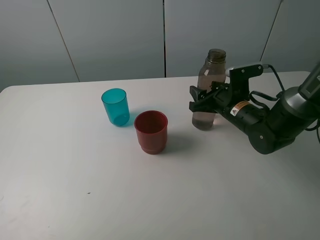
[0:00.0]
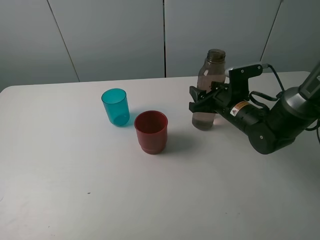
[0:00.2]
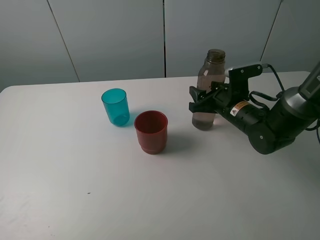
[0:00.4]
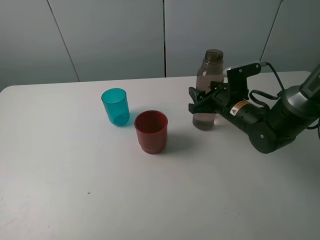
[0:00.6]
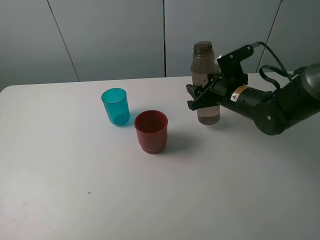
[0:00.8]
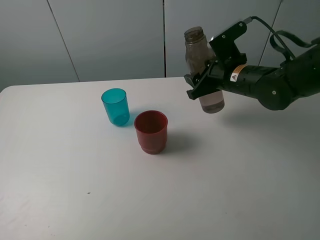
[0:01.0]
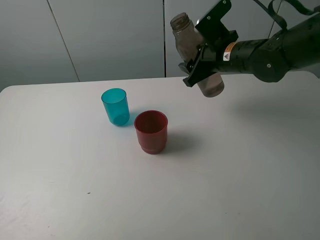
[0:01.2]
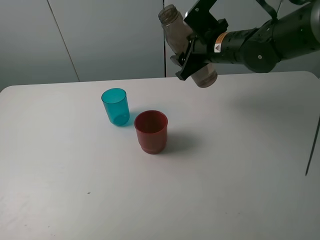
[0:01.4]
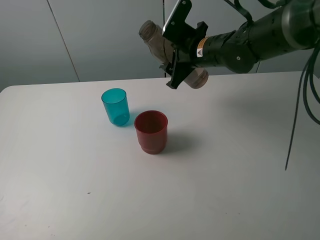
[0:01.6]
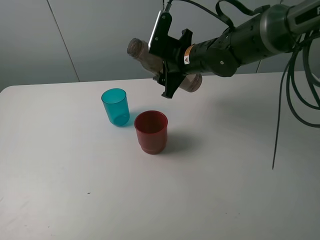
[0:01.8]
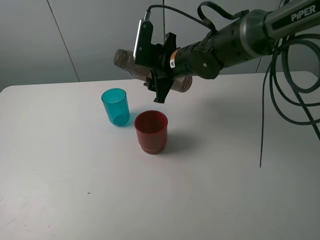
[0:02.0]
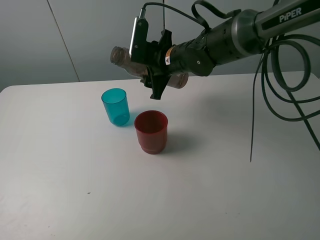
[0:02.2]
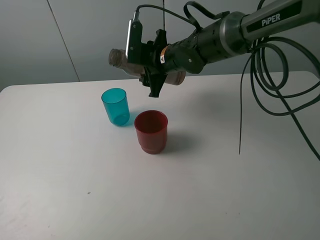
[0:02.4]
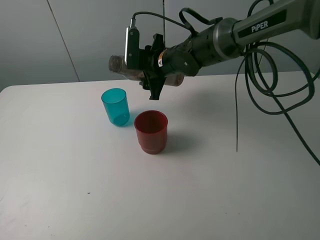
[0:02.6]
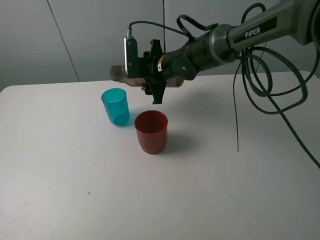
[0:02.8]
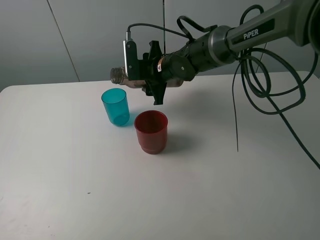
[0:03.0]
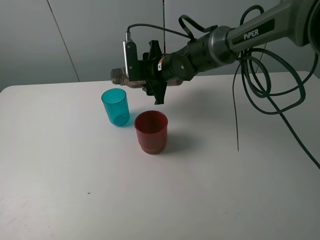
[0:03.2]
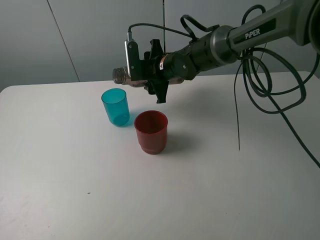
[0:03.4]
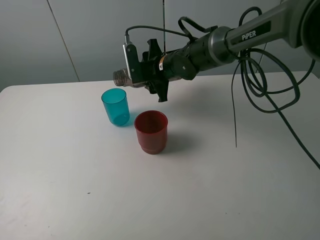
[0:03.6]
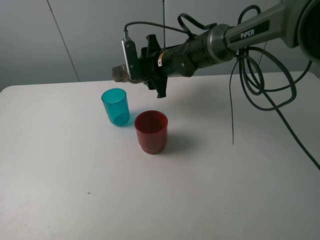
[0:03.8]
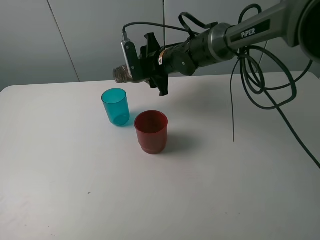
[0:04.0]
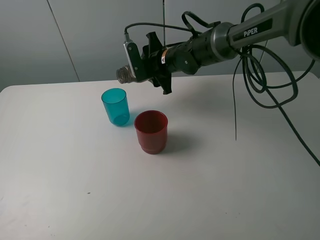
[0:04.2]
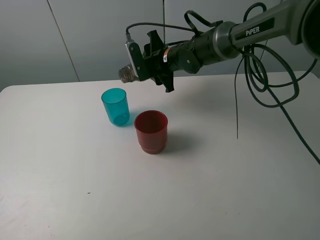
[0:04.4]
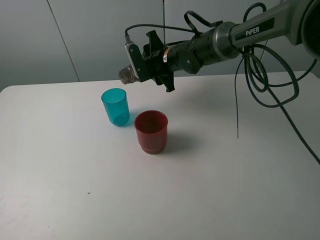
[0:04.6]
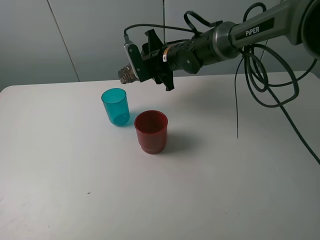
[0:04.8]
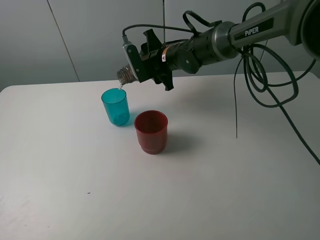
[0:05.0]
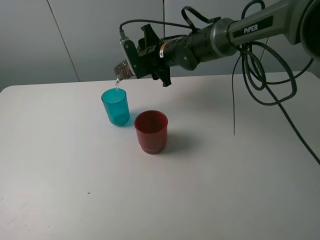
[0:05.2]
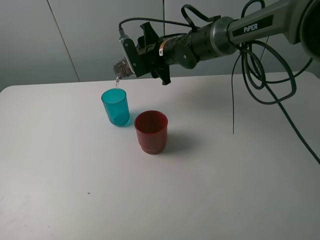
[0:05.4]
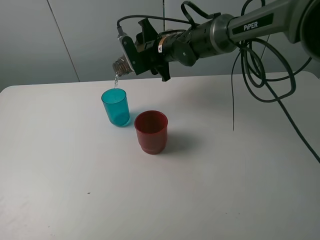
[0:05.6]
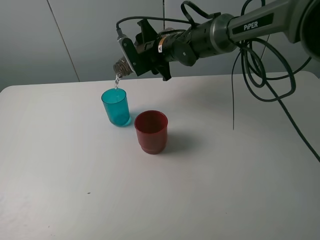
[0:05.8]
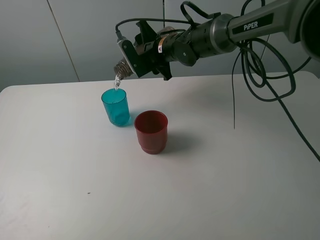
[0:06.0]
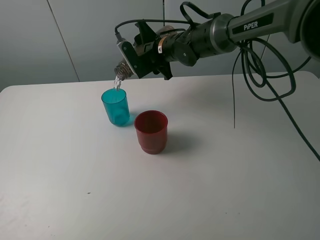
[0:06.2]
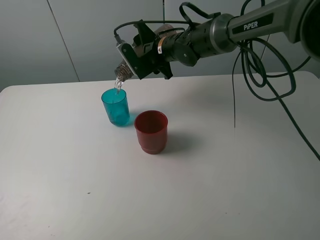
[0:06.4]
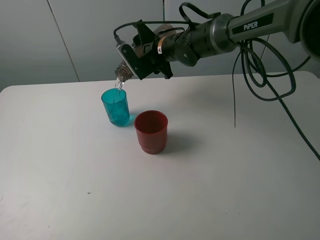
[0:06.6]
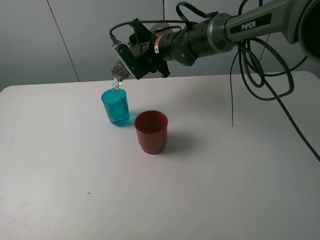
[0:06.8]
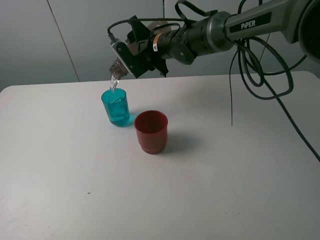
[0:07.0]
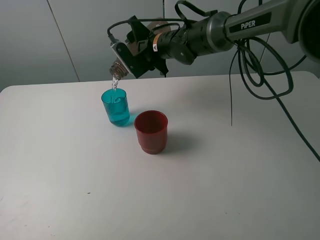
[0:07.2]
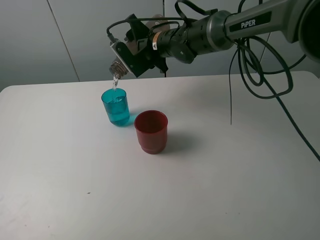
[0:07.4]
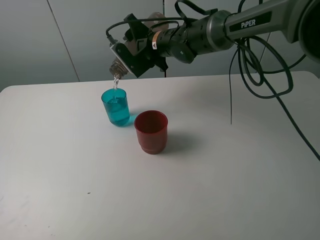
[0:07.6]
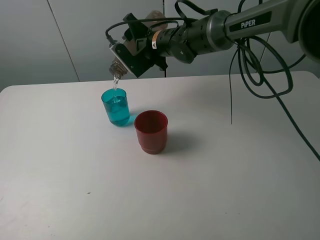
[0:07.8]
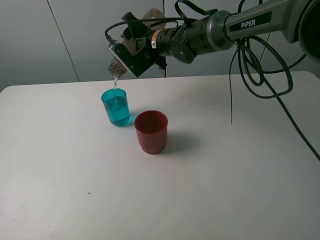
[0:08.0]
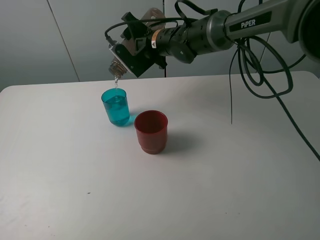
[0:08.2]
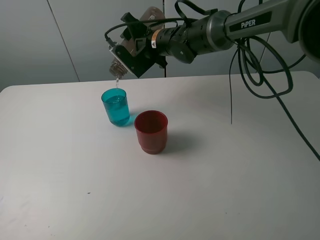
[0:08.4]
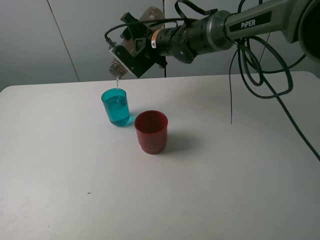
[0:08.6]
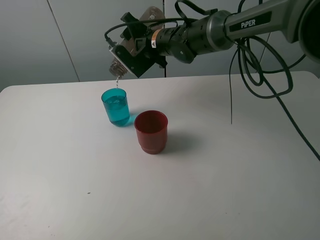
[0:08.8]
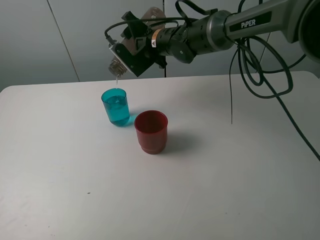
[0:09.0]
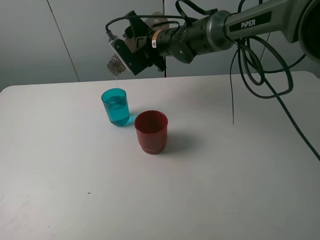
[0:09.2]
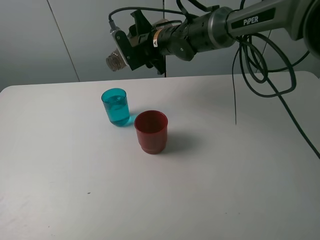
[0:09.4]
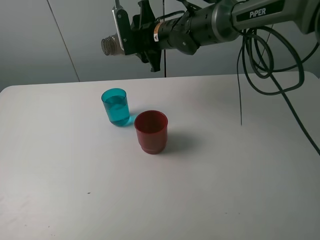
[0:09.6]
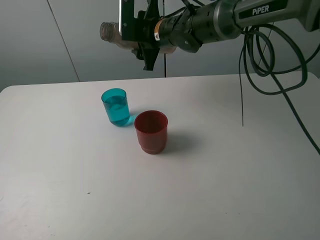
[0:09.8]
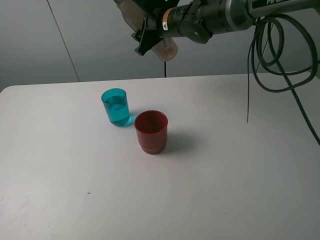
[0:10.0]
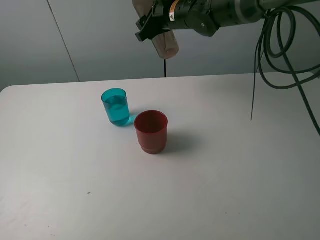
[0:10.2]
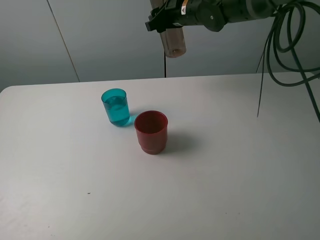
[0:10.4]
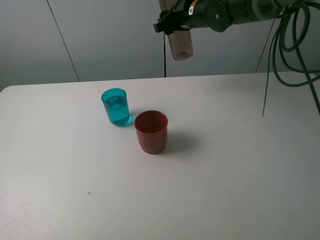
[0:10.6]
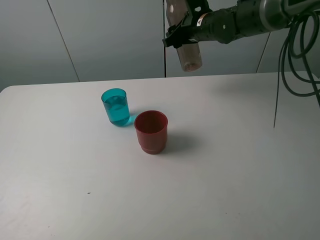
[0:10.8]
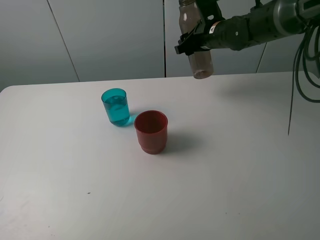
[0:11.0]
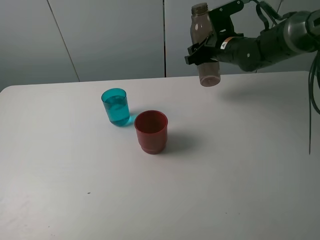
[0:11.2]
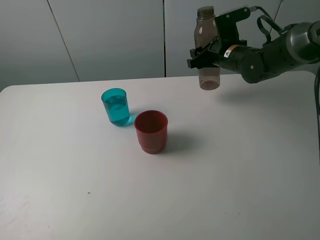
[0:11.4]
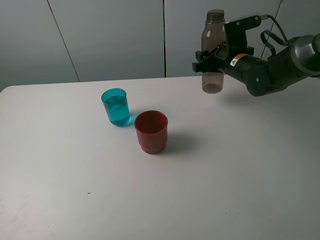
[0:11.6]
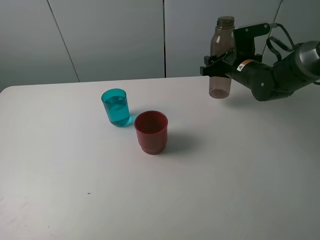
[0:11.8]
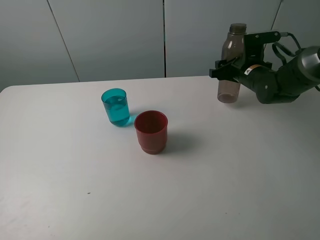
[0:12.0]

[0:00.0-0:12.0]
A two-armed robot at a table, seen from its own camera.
Task of the whole recording: pick up the bottle and pour water into the cup, then pick up the cup containing water and pour it into another cup.
Step, 0:00.4 to 0:09.0: Pour water from brown bottle to blue cup with the right gripper.
0:00.0 to 0:01.6: The right gripper is displaced upward, to the left and forward by approximately 15 cm.
0:01.6 to 0:03.0: The right gripper heads to the left and downward, covering about 10 cm.
0:03.0 to 0:04.4: There are only small adjustments of the grippers.
0:04.4 to 0:06.0: The grippers stay close to where they were, moving slightly.
0:06.0 to 0:09.0: The grippers make only small movements.
0:09.0 to 0:10.4: The right gripper heads to the right and upward, covering roughly 10 cm.
0:10.4 to 0:12.0: The right gripper is displaced to the right, downward and backward by roughly 20 cm.

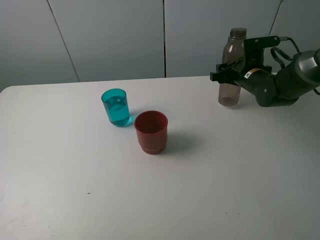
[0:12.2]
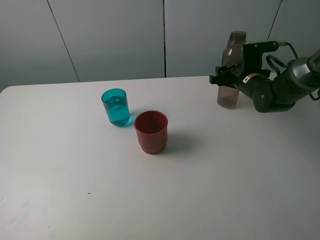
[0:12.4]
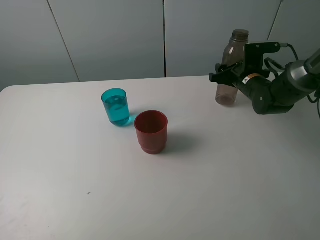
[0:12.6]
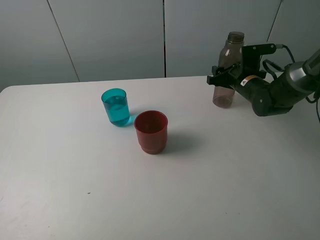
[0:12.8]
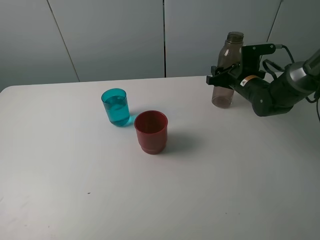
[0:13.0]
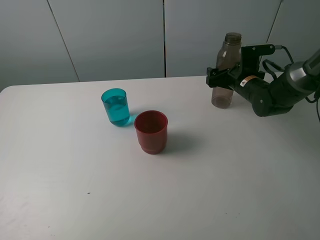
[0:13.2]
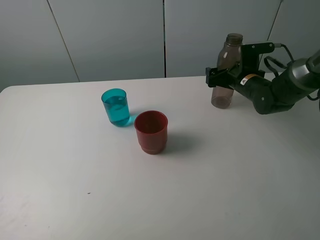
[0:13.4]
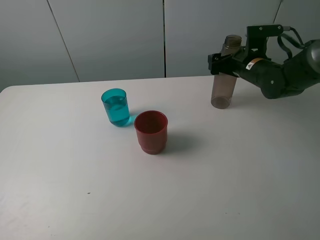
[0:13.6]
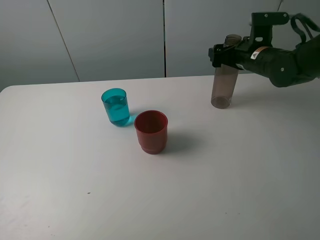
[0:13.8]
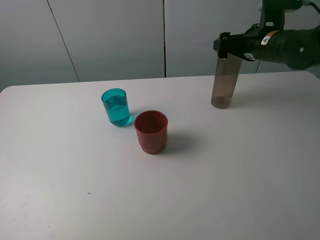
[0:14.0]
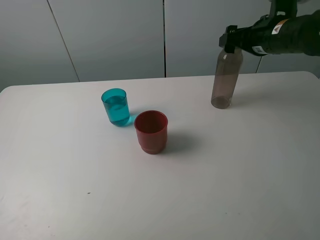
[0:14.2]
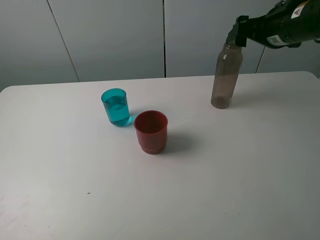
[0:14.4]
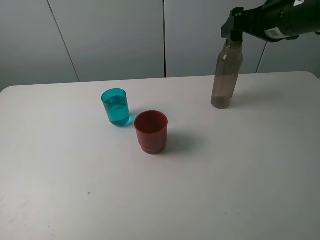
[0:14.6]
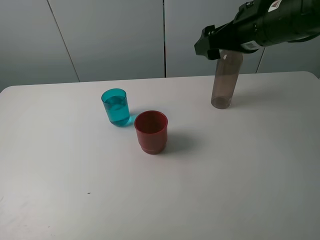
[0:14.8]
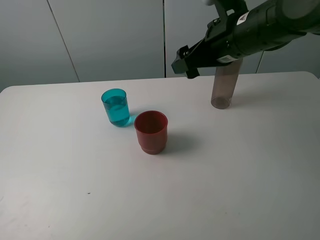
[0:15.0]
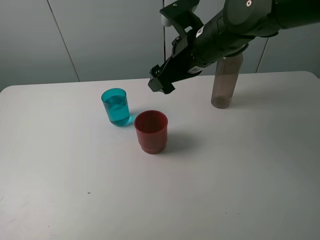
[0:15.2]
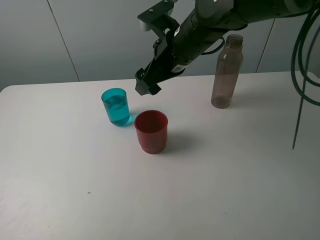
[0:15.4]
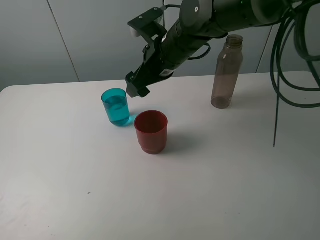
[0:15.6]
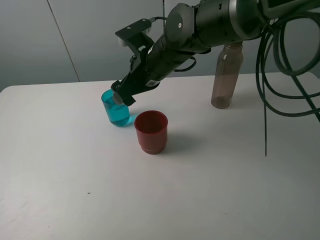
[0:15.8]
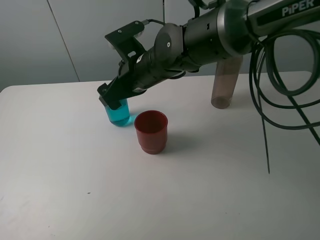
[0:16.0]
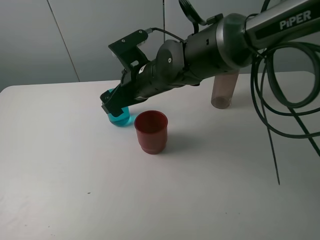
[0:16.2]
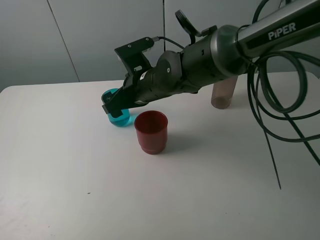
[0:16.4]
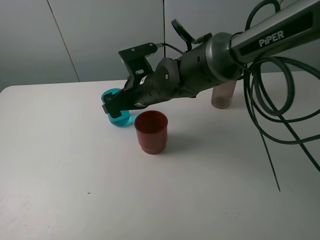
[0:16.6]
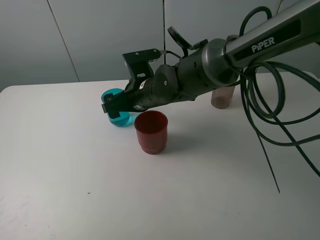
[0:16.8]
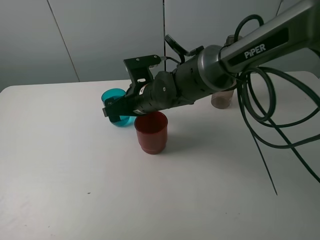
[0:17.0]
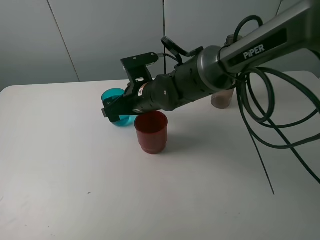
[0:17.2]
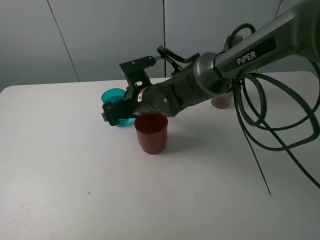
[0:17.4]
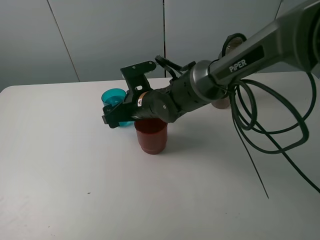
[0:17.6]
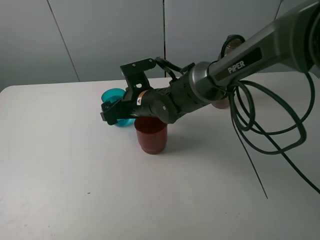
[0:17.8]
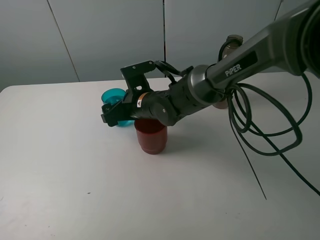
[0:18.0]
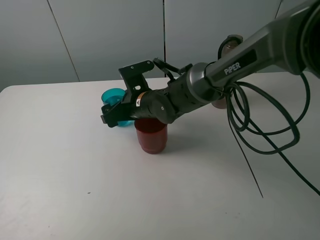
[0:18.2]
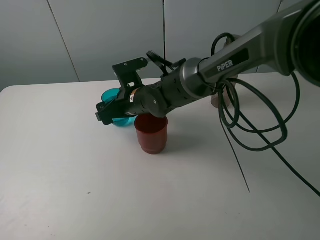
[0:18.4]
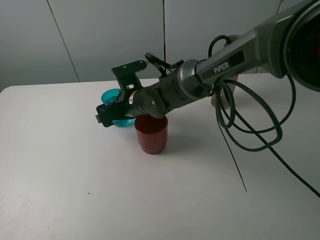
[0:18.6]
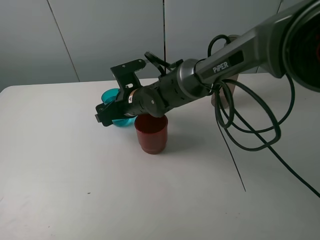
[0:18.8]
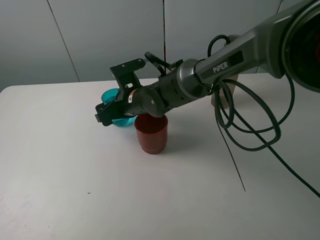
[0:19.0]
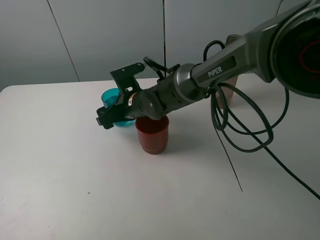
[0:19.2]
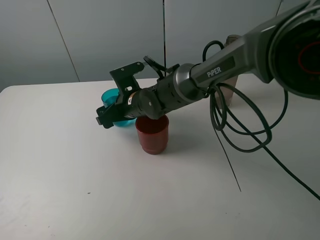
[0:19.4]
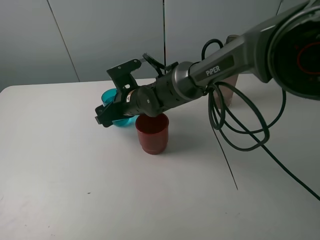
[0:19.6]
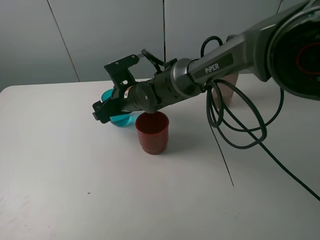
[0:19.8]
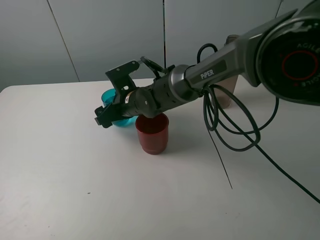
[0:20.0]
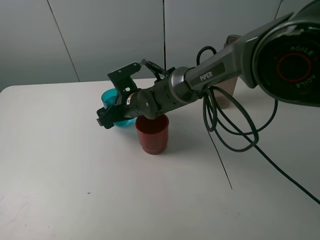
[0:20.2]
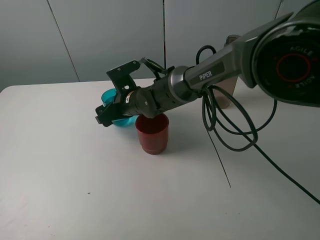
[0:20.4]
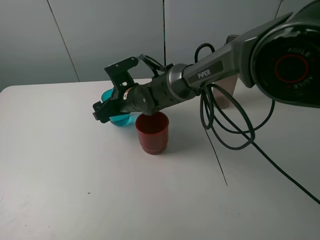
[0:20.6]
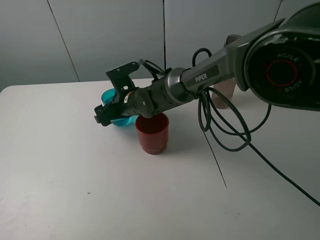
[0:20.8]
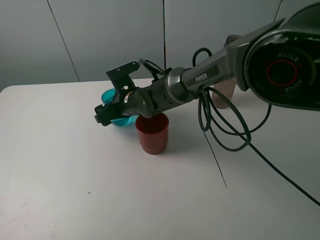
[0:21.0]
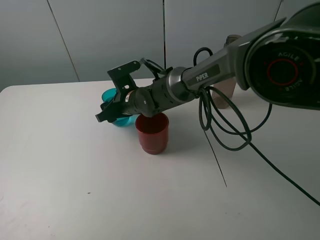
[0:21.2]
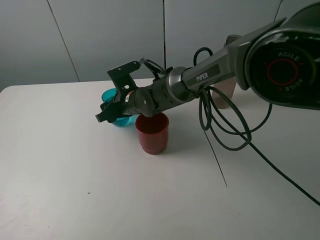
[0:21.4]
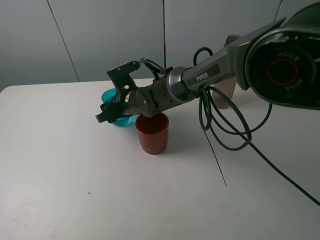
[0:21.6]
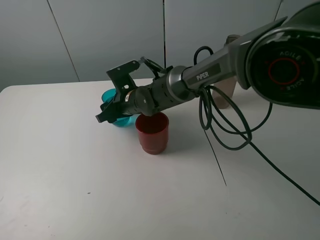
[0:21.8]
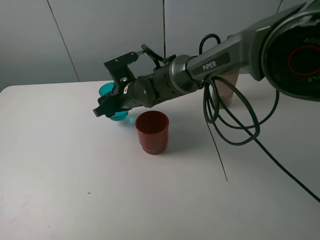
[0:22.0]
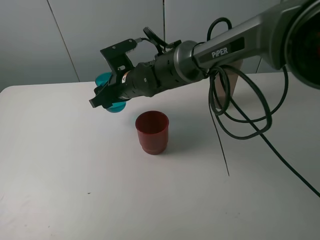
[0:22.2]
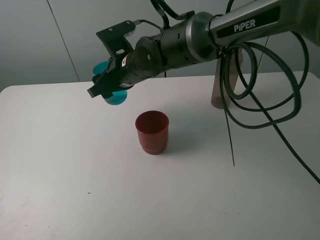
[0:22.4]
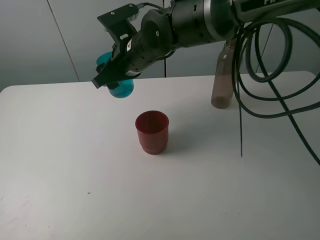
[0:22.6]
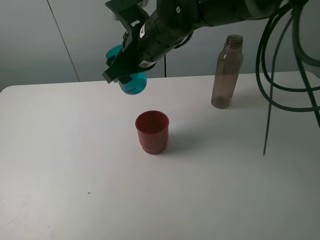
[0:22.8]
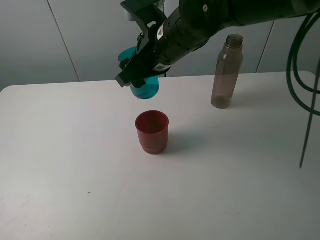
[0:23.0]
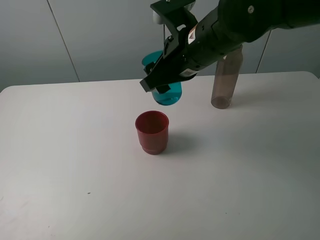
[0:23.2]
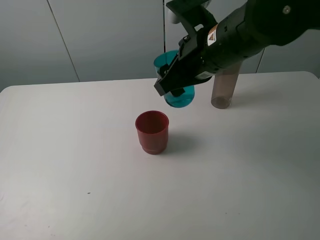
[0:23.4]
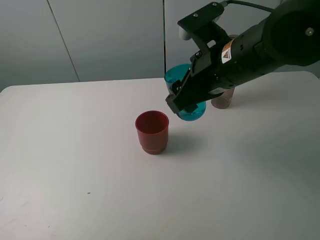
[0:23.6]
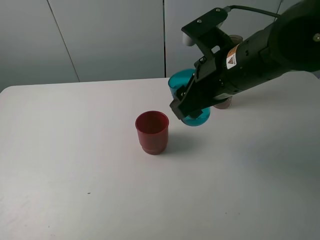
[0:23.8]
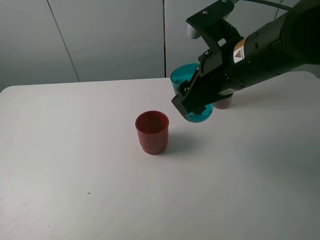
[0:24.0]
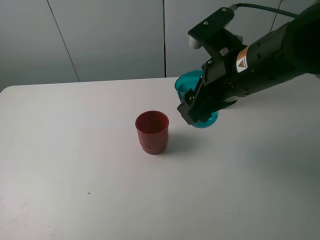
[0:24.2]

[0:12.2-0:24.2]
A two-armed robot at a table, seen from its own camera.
Task of the whole recording: pick up the bottle and pour water into the cup, then pick up the cup containing water and pour it into another cup.
Step, 0:13.8 to 0:21.4: Grasp the blue cup with the right gripper.
0:12.2 to 0:13.8: The right gripper heads upward, covering some 5 cm, and opens.
0:13.8 to 0:15.2: The right gripper moves to the left, backward and upward, about 20 cm.
0:15.2 to 0:16.6: The right gripper travels to the left and downward by approximately 10 cm.
0:16.6 to 0:18.2: The right gripper changes place by some 5 cm.
0:18.2 to 0:19.8: There are only small adjustments of the grippers.
0:19.8 to 0:21.2: The right gripper closes its fingers.
0:21.2 to 0:22.6: The right gripper shifts approximately 15 cm upward.
0:22.6 to 0:24.2: The right gripper is displaced to the right and backward by some 20 cm.
